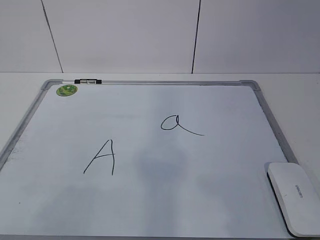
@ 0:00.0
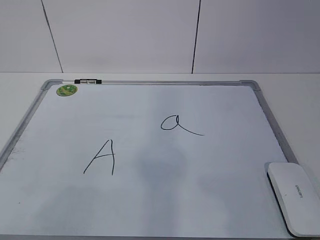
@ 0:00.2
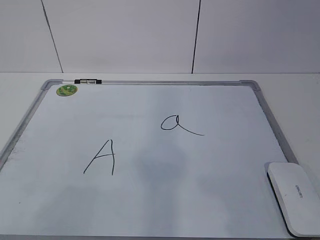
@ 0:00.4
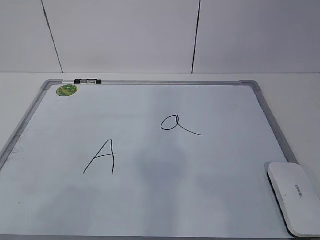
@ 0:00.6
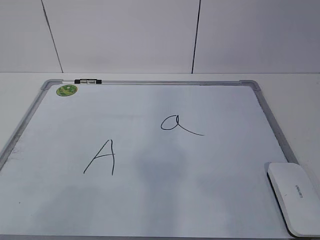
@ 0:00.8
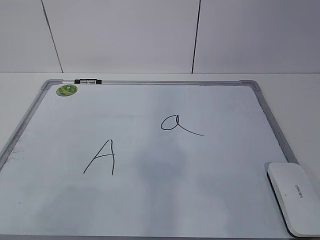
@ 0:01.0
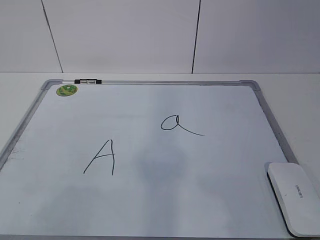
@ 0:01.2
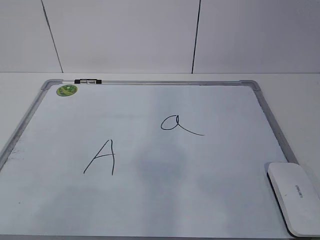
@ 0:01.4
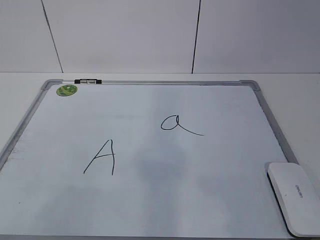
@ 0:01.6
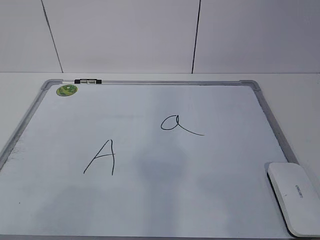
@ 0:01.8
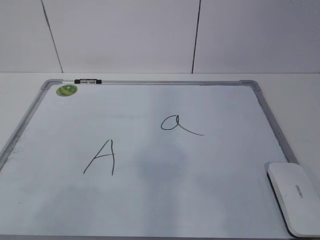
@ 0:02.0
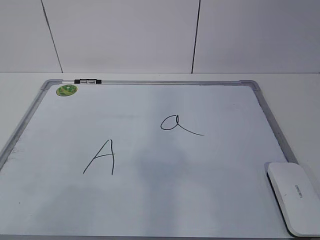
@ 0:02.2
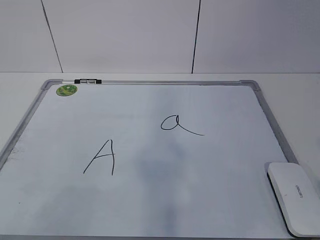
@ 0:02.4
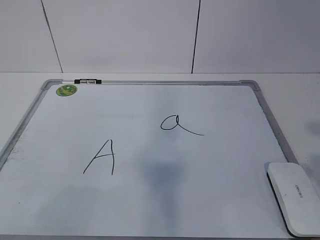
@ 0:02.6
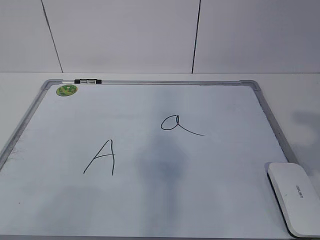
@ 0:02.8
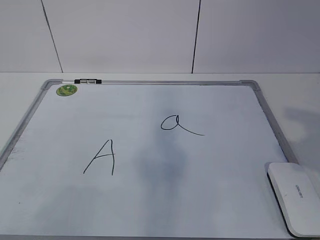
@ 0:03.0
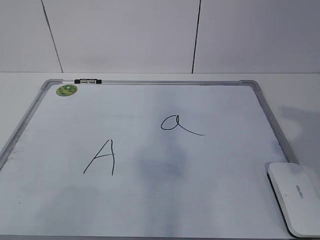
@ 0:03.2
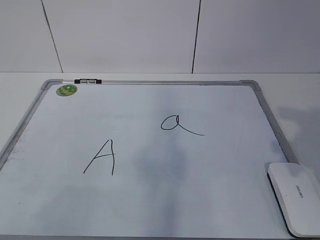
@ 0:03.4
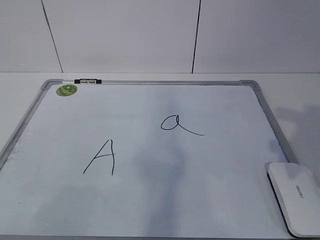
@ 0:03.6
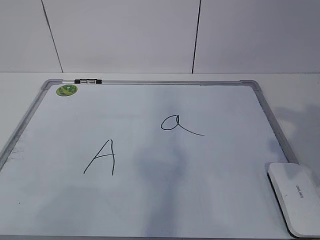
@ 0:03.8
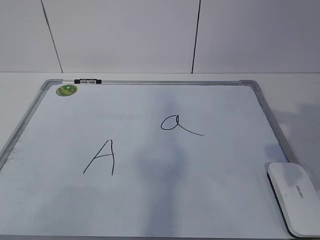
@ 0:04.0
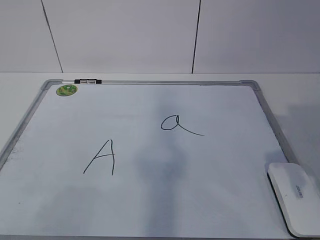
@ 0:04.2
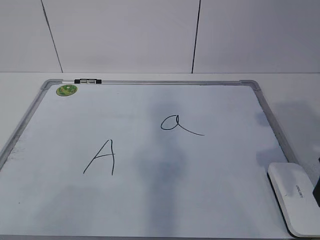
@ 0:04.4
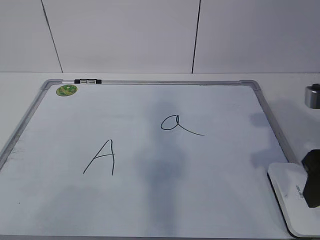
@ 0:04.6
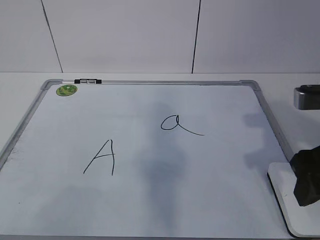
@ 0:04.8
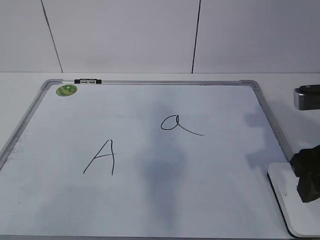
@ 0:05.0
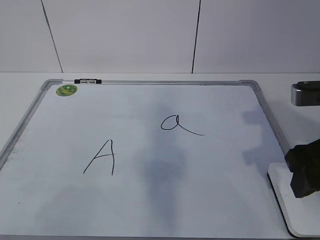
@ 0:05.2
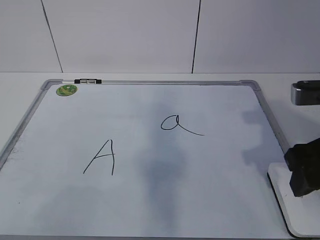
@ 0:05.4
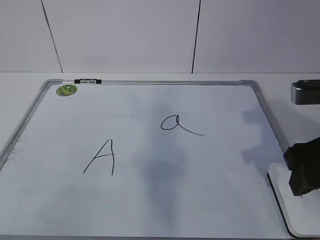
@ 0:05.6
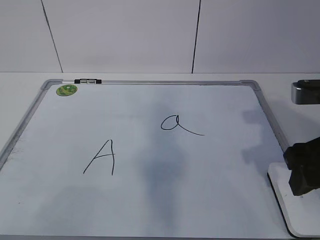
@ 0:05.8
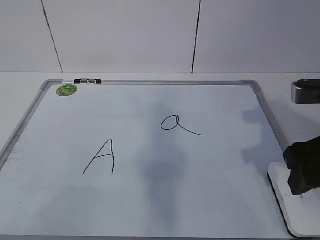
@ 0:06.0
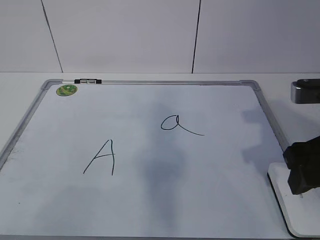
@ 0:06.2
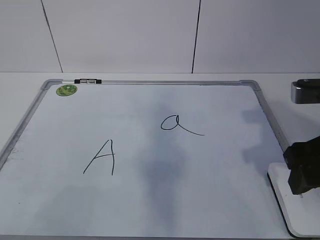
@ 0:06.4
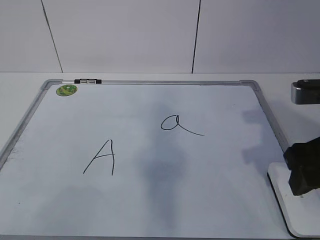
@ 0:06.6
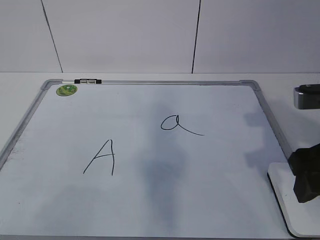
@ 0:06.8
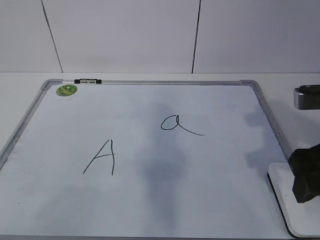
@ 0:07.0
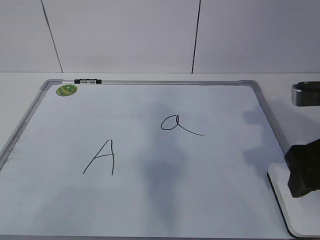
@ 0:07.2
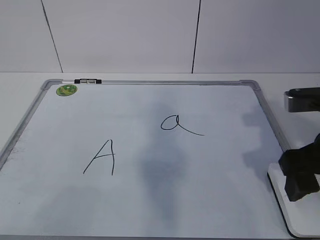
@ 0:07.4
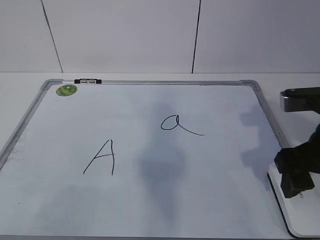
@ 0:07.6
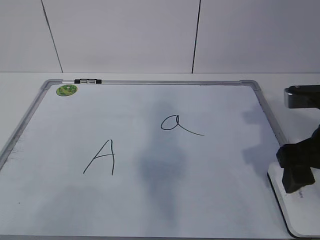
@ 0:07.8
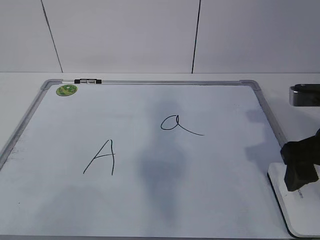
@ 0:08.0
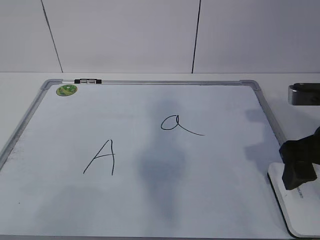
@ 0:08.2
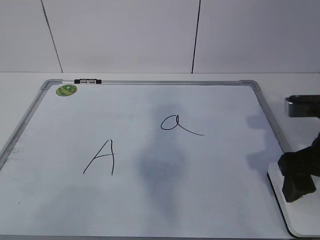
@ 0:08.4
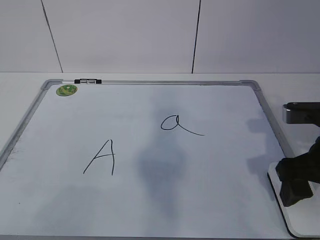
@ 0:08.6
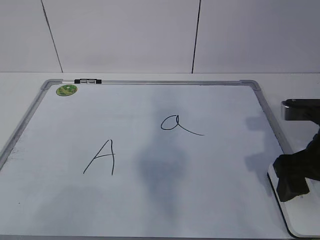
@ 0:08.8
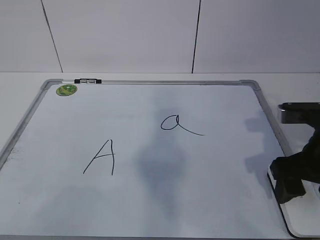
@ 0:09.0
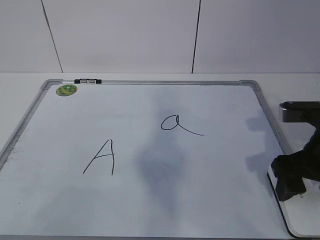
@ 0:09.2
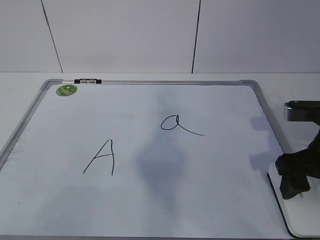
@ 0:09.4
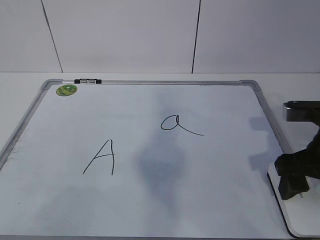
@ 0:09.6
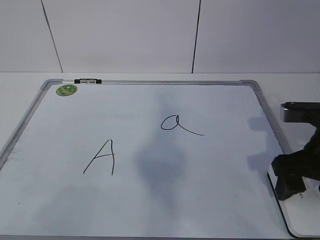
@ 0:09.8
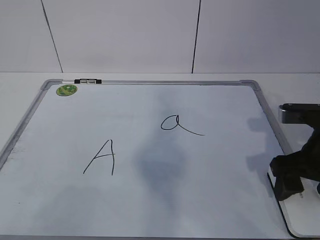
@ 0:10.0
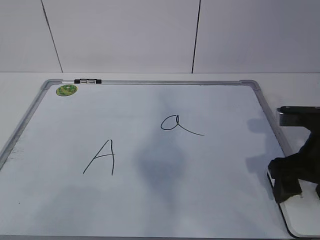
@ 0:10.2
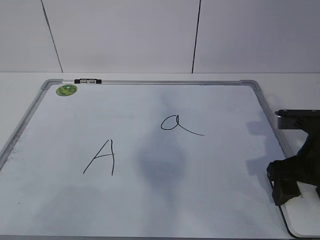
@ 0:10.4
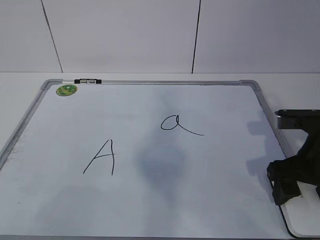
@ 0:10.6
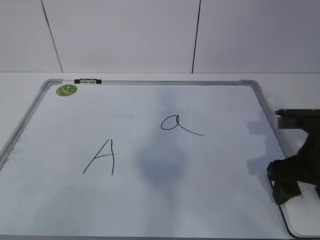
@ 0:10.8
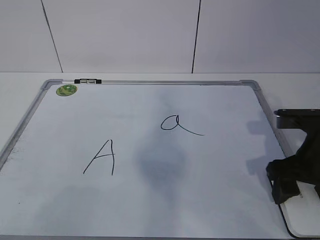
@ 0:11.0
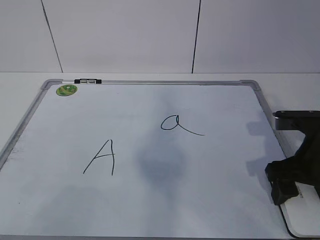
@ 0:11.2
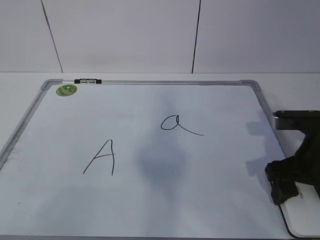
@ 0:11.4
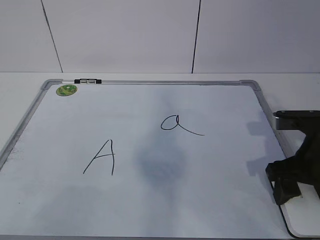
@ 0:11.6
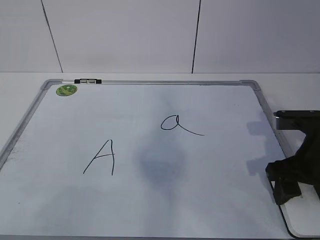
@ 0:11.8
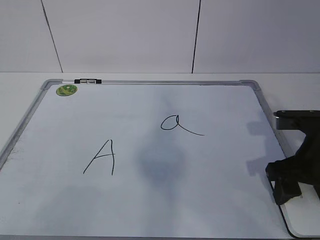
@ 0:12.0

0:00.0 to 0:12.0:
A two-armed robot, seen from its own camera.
Task of the whole recording: pick up the eraser on the blackboard and erase the letter "a".
Step, 0:00.0 to 0:10.4: Grab the eraser with your right hand.
0:03.0 to 0:04.4: The right gripper is displaced forward and downward by roughly 10 cm.
0:04.4 to 0:06.0: The grippers move only a little.
0:06.0 to 0:07.6: The right gripper opens its fingers.
0:07.6 to 0:09.0: There are only small adjustments of the grippers.
0:09.0 to 0:10.4: The grippers move only a little.

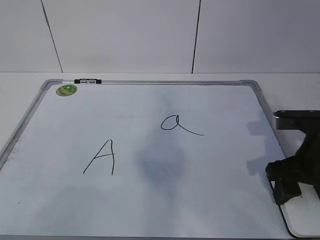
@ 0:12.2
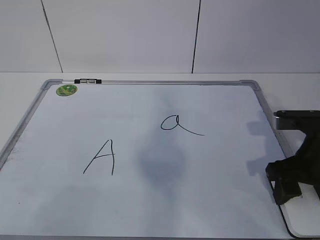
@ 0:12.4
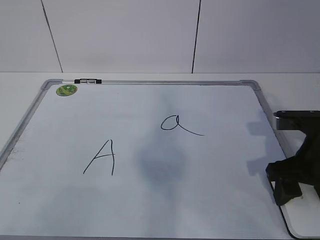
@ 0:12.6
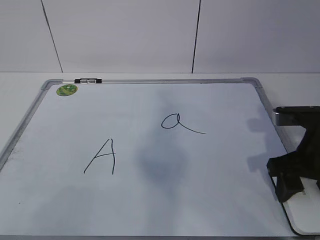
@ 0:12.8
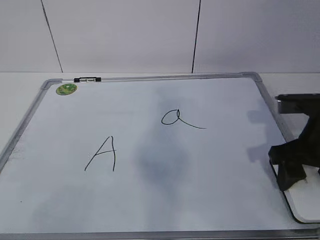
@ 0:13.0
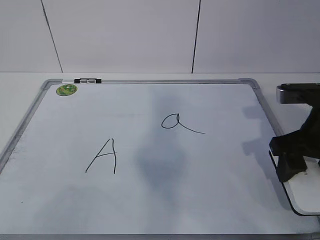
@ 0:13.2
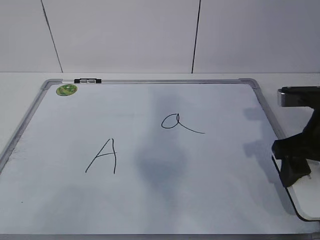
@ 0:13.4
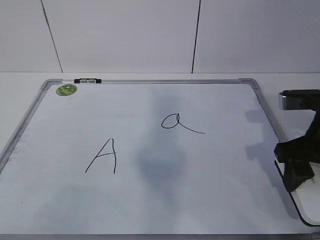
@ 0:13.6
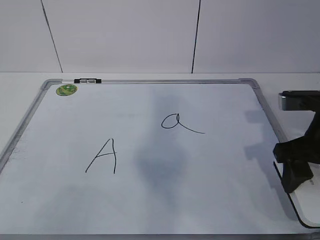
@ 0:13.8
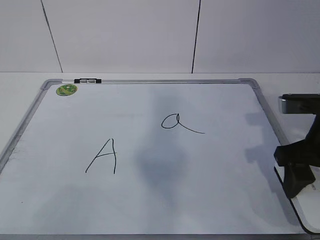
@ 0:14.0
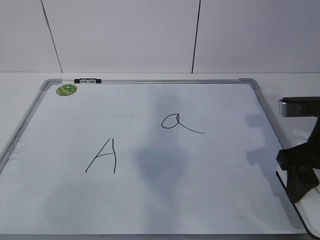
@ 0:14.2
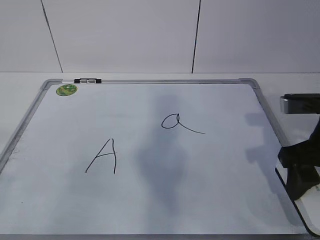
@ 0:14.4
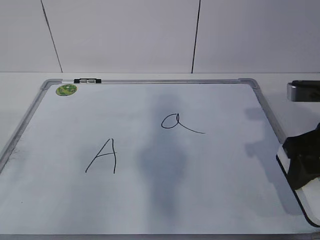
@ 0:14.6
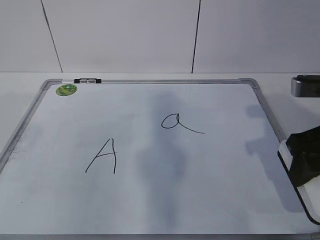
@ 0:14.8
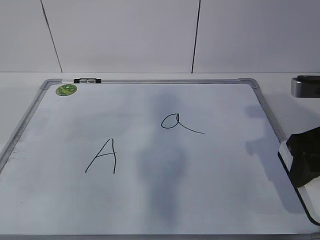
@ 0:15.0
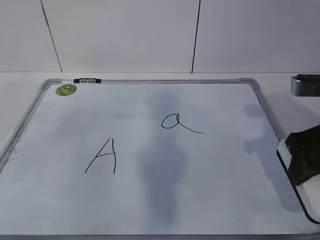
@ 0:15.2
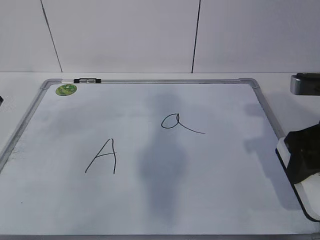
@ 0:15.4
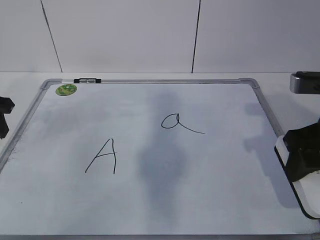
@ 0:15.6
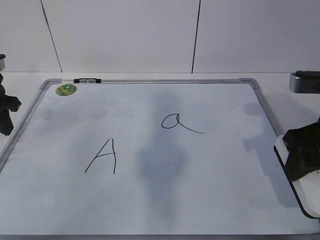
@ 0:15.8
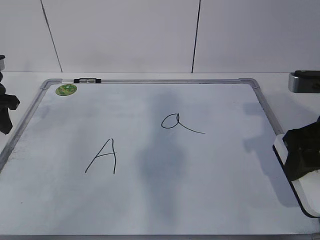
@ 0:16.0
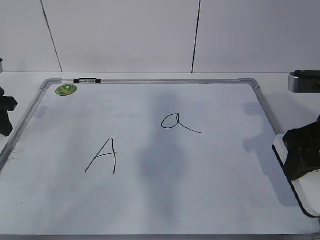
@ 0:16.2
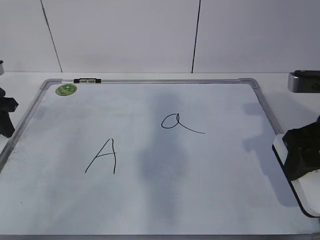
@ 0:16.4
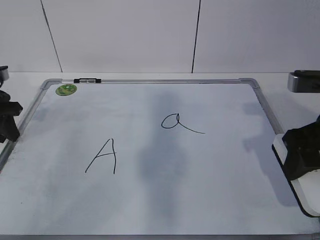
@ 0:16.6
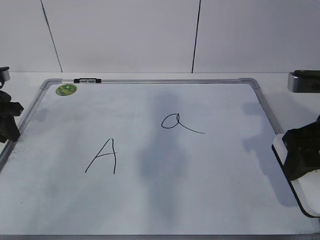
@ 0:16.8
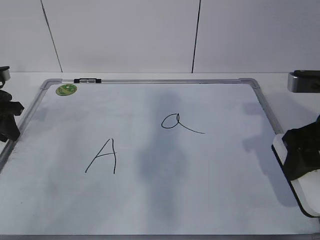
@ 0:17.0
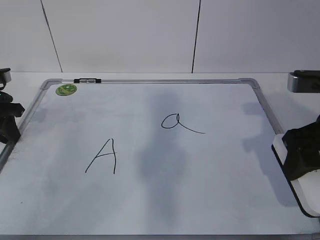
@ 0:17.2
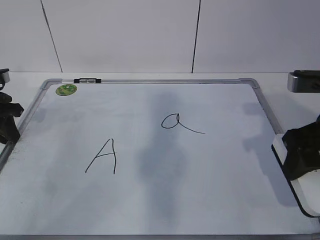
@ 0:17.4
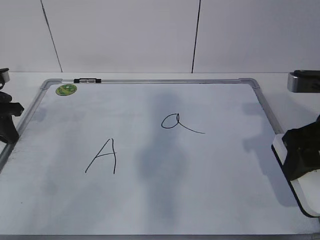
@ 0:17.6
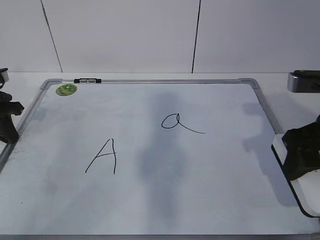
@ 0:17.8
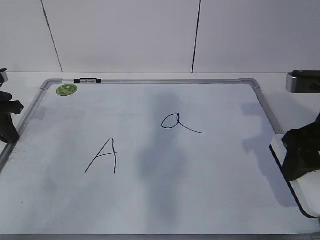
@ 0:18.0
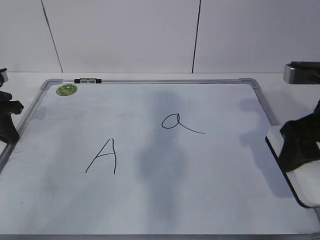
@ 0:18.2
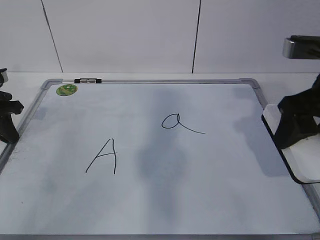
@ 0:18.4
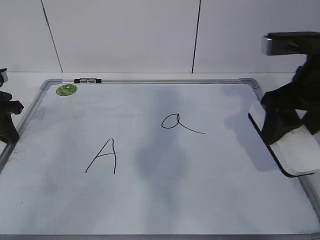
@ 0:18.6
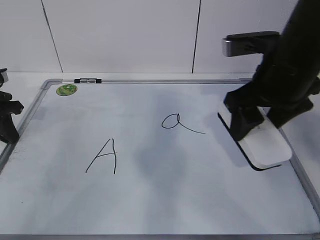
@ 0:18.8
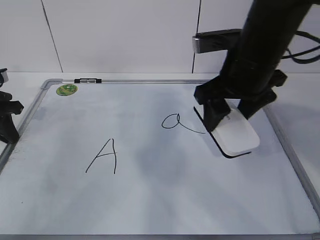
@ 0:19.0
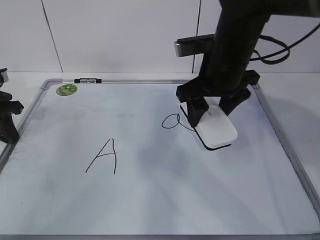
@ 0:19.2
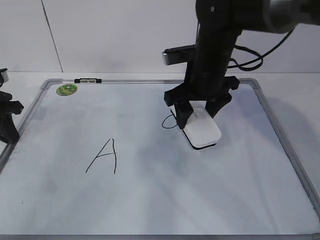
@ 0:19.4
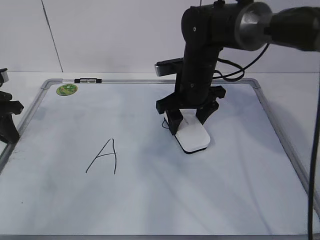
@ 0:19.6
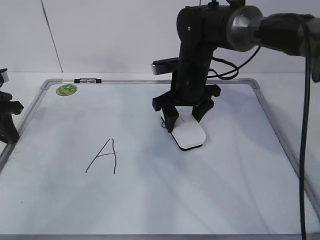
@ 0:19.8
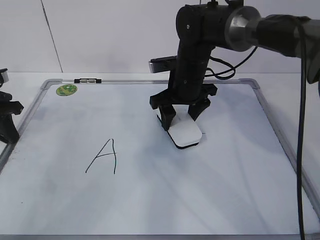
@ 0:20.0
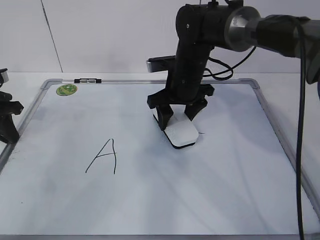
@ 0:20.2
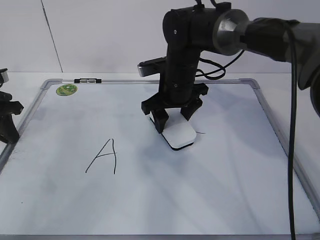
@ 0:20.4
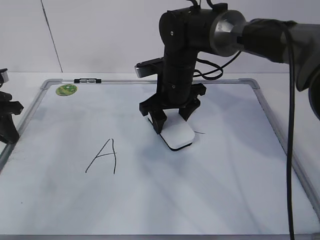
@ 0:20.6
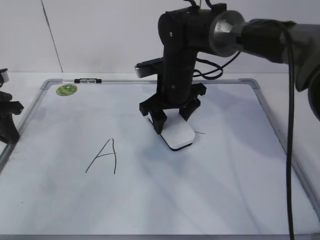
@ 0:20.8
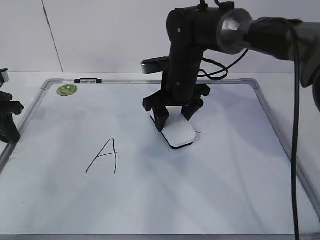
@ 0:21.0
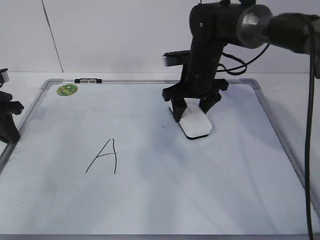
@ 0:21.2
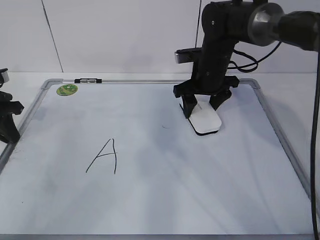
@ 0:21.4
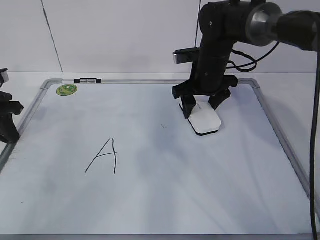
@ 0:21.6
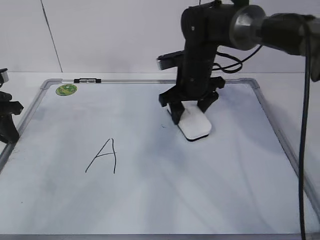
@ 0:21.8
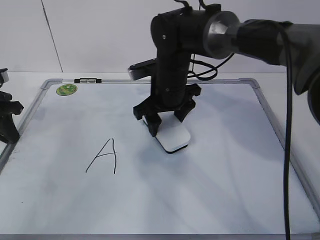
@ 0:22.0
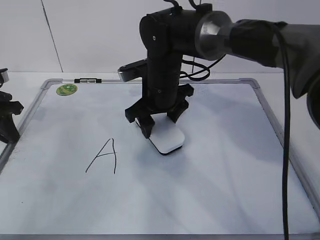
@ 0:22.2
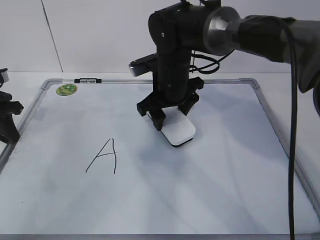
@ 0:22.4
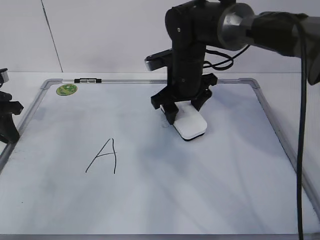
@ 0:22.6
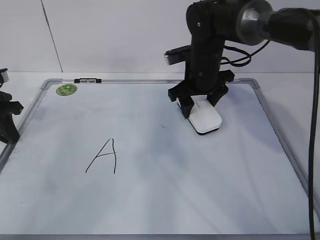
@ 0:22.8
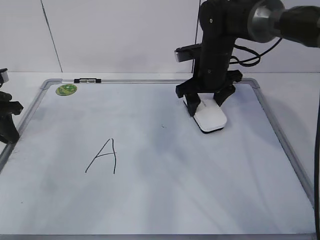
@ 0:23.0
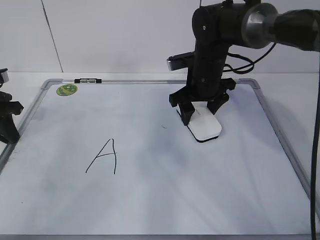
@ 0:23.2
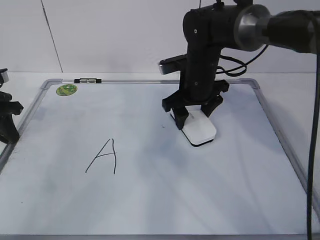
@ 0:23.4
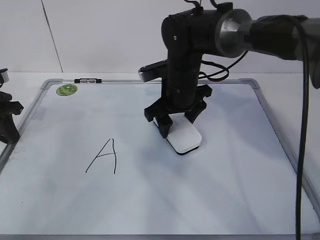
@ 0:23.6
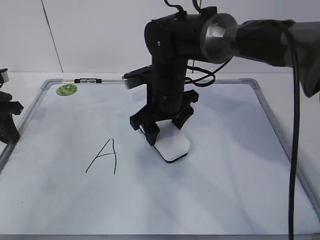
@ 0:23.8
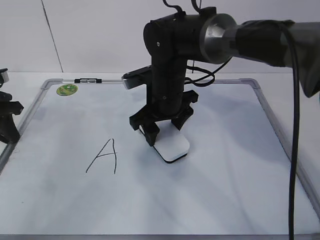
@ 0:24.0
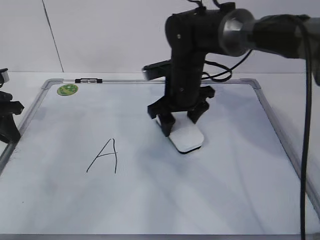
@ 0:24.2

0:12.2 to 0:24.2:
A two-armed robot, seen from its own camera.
Task of the whole recording: pick up the eraser on the blackboard and erase the letter "a".
Step, 0:12.2 to 0:14.8: Hold the drawing board steady with your left hand.
Step, 0:15.0 to 0:20.2: Erase the letter a with your right hand.
Step, 0:20.4 to 0:23.2: Put down the eraser with your right hand.
0:12.2 to 0:13.8: The grippers make only small movements.
0:13.8 to 0:15.2: The left gripper goes about 30 cm forward.
0:15.2 to 0:16.6: The left gripper shifts roughly 15 cm downward and forward.
0:18.2 to 0:19.8: The right gripper moves forward, to the left and downward, about 25 cm.
0:19.8 to 0:21.2: The grippers move only a little.
0:21.2 to 0:22.6: The right gripper moves roughly 10 cm to the left and comes back.
0:22.6 to 0:24.2: The right gripper swings left and right, approximately 10 cm each way, with 2 reversals.
